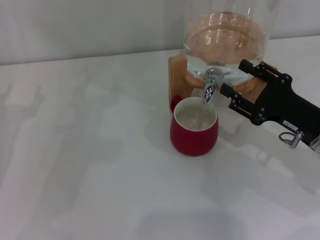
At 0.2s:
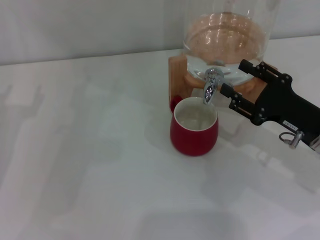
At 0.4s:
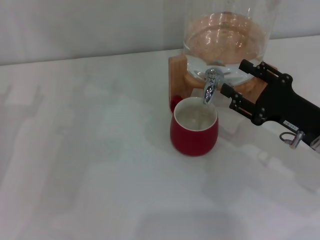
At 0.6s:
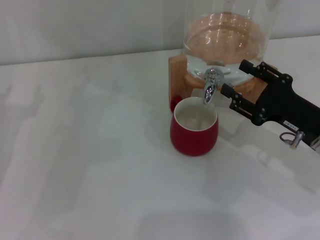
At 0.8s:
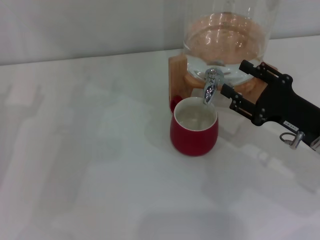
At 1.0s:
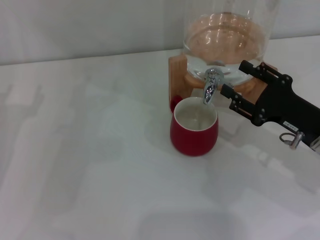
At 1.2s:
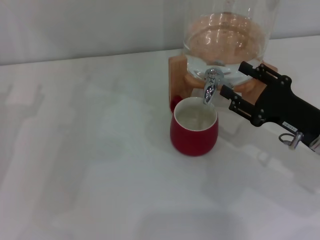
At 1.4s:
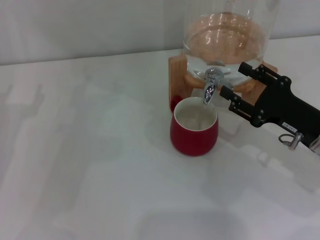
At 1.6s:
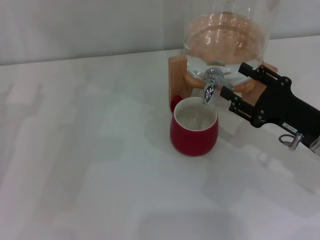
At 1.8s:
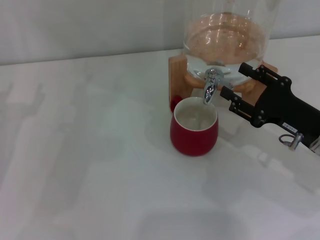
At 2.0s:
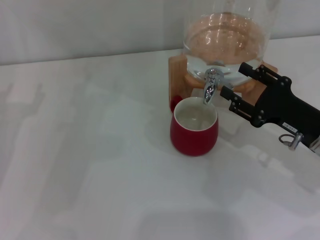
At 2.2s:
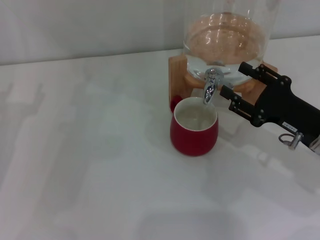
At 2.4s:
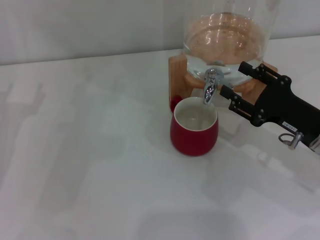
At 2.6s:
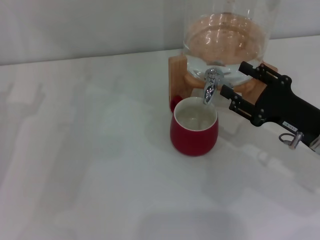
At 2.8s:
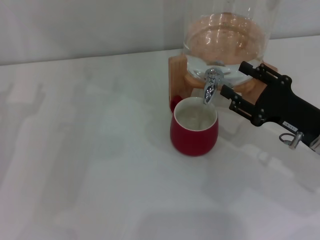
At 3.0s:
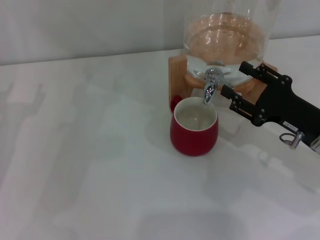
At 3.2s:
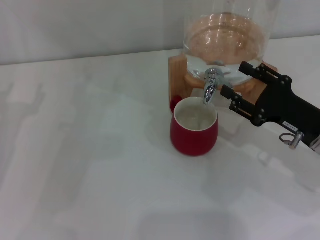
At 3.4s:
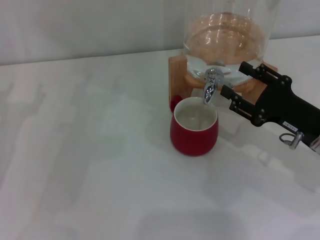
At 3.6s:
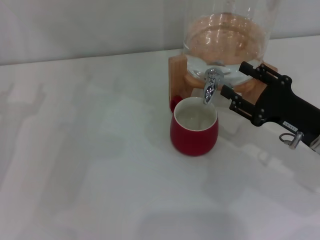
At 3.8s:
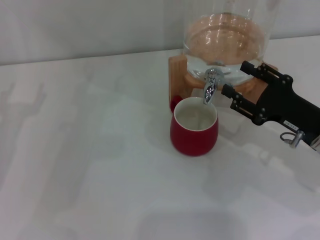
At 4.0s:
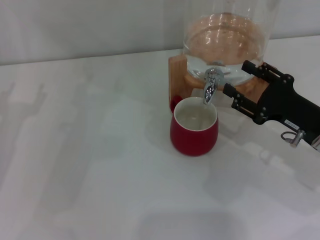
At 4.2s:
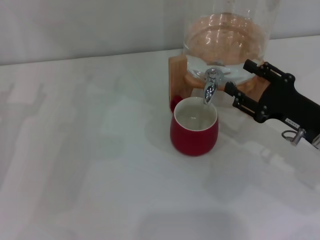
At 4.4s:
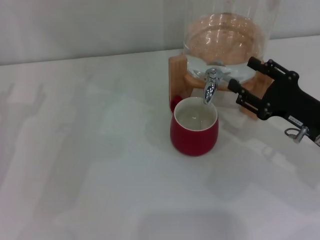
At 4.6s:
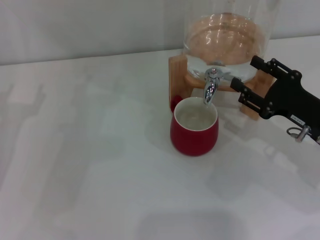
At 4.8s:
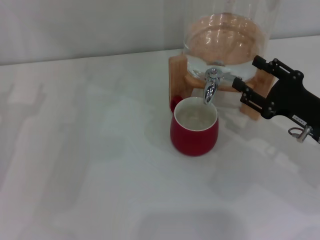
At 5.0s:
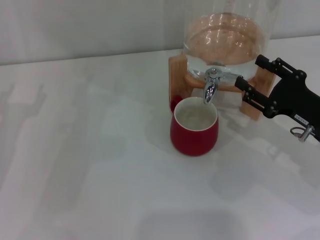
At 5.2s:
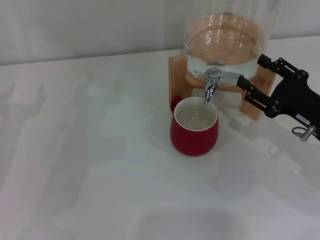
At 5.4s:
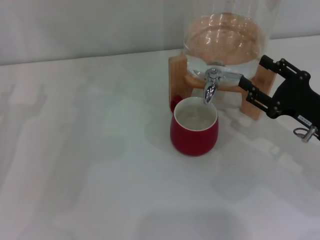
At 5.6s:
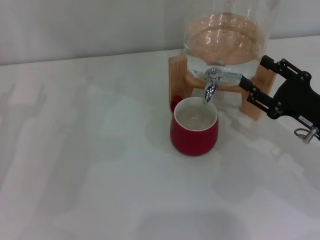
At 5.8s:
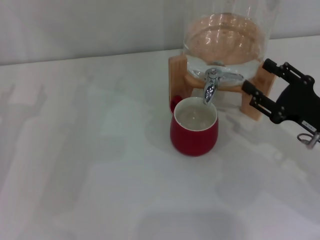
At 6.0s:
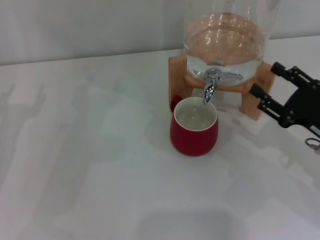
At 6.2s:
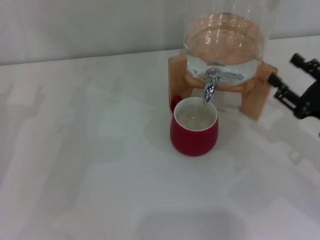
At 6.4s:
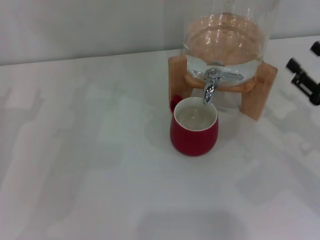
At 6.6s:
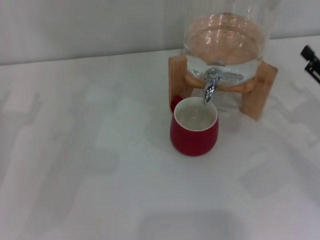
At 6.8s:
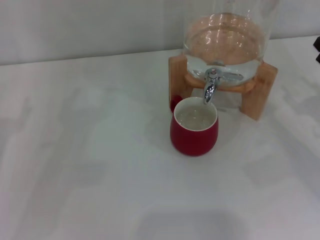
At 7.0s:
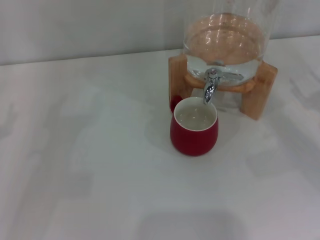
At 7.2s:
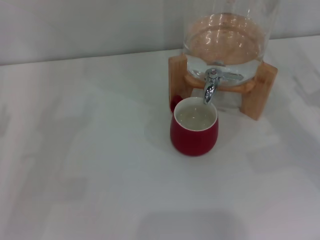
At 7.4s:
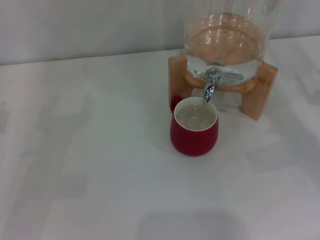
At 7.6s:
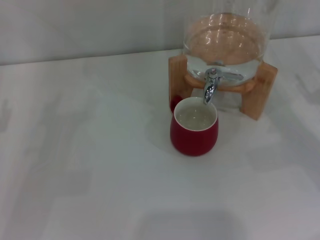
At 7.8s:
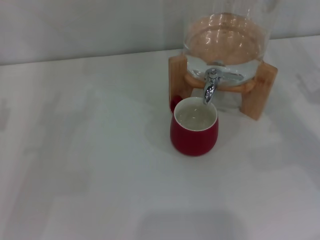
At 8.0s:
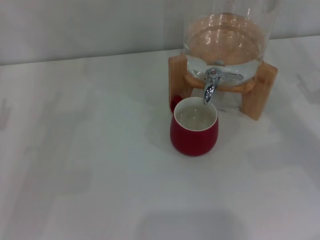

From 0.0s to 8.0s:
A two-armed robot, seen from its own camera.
Task of the whole recording: the left gripper pick up the red cup and place it horizontally under the faucet, the right gripper turn on the faucet to fill the cup, and then turn off the faucet.
Step, from 0.0s to 5.6s: Close the dispenser valve with the right gripper.
From 0.0s to 3.2s: Both grippers stay about where they are.
From 3.2s to 4.8s: Both grippers stay about where they are.
From 4.8s to 6.4s: The right gripper shifts by about 5 cm.
From 6.4s to 8.0s: The right gripper changes place by approximately 5 cm.

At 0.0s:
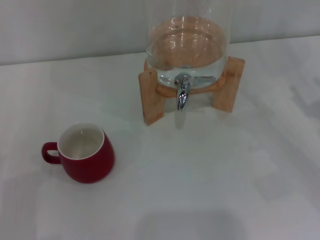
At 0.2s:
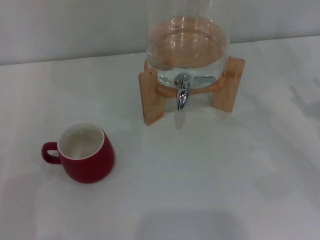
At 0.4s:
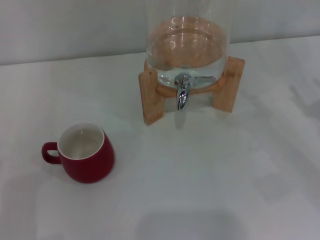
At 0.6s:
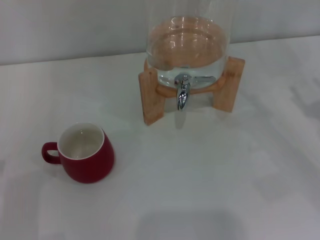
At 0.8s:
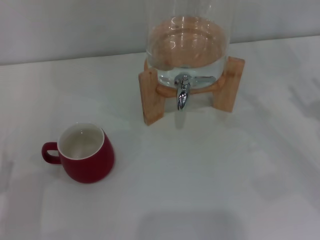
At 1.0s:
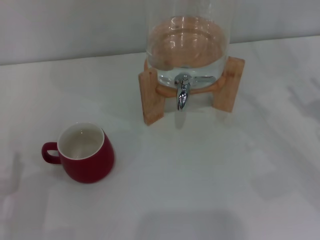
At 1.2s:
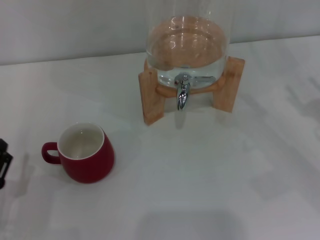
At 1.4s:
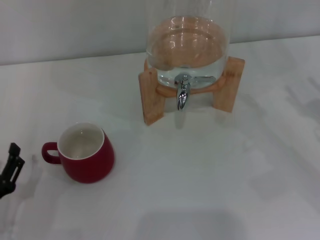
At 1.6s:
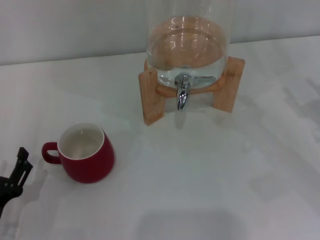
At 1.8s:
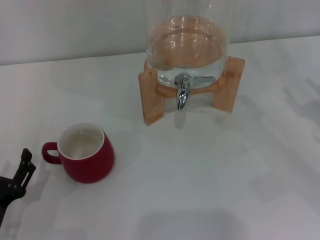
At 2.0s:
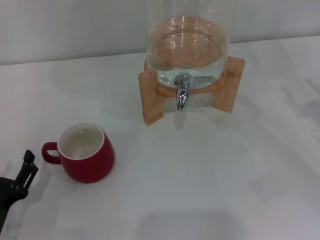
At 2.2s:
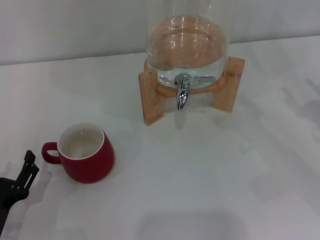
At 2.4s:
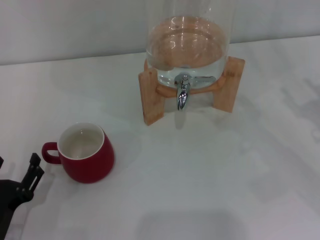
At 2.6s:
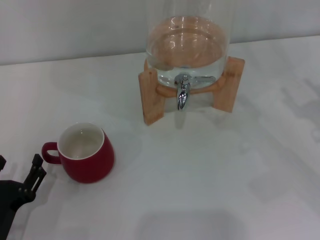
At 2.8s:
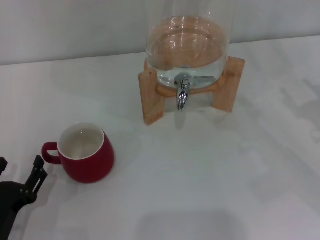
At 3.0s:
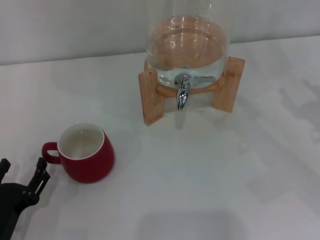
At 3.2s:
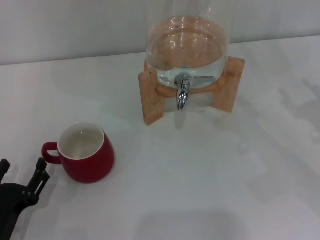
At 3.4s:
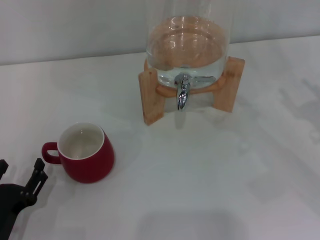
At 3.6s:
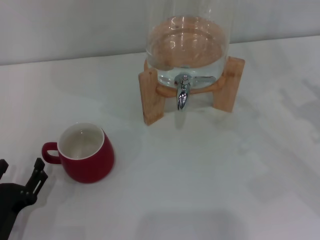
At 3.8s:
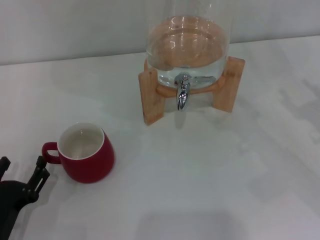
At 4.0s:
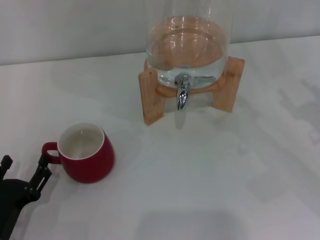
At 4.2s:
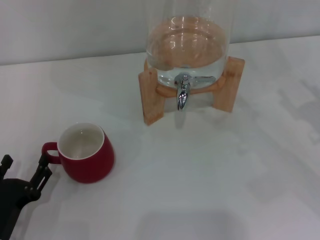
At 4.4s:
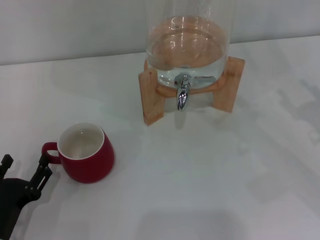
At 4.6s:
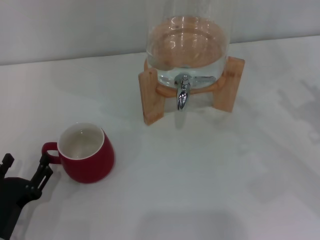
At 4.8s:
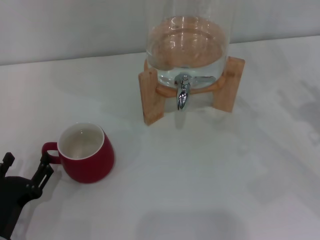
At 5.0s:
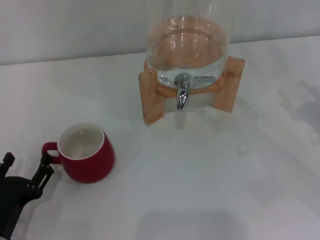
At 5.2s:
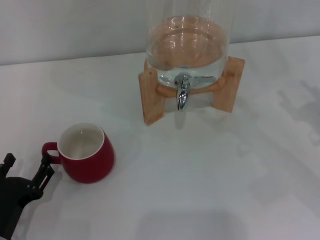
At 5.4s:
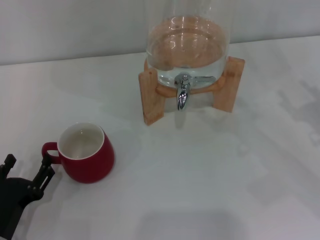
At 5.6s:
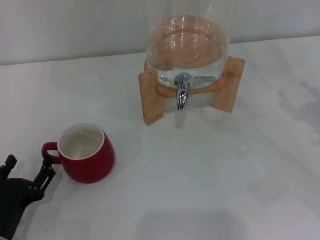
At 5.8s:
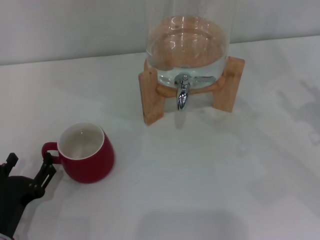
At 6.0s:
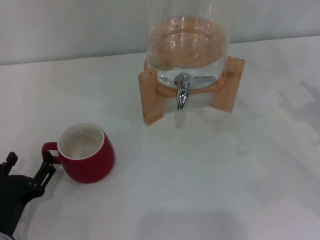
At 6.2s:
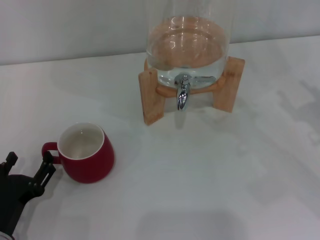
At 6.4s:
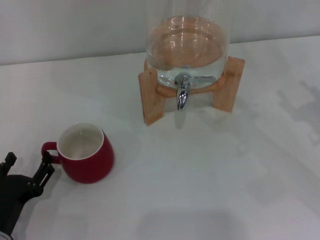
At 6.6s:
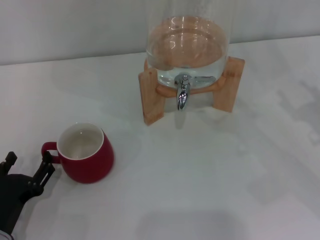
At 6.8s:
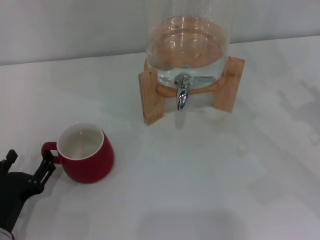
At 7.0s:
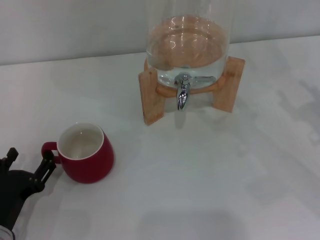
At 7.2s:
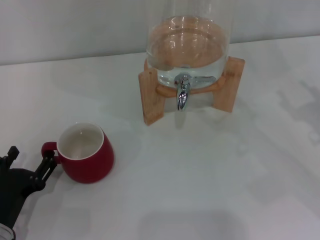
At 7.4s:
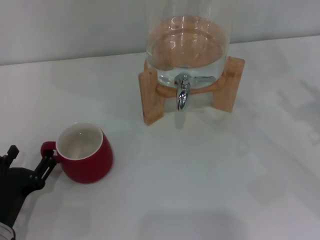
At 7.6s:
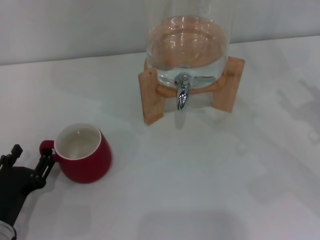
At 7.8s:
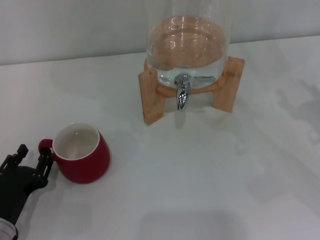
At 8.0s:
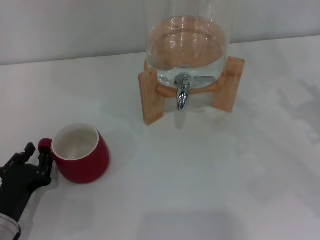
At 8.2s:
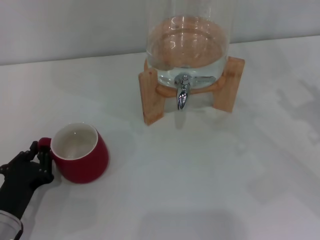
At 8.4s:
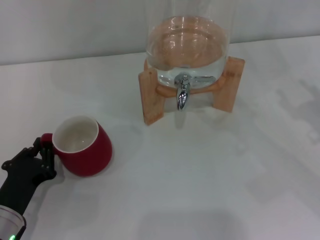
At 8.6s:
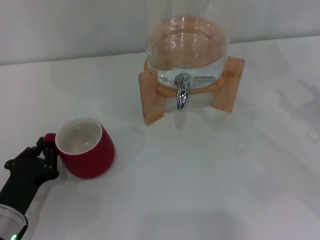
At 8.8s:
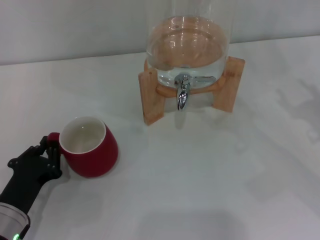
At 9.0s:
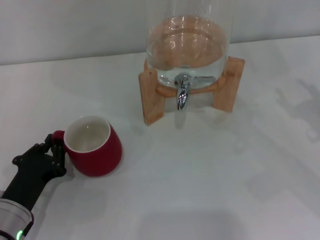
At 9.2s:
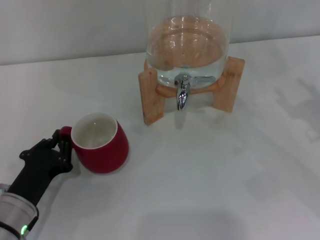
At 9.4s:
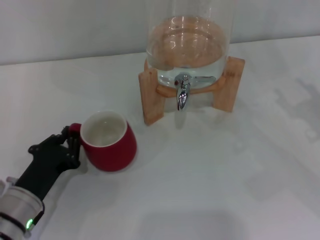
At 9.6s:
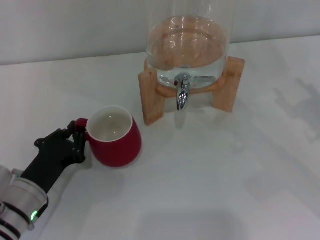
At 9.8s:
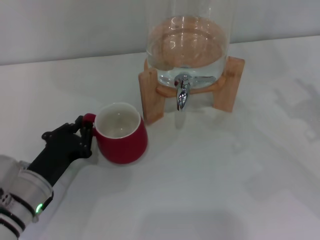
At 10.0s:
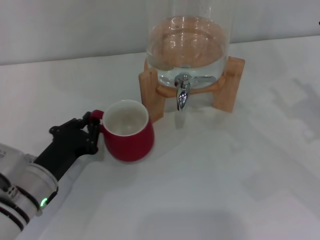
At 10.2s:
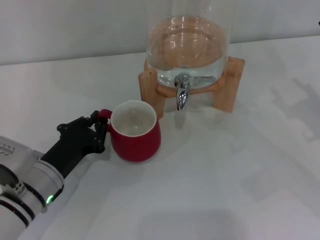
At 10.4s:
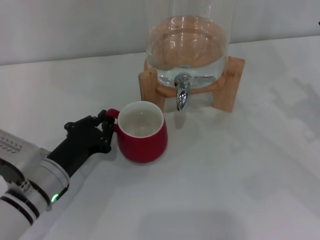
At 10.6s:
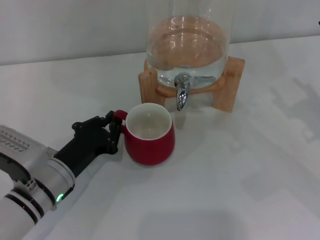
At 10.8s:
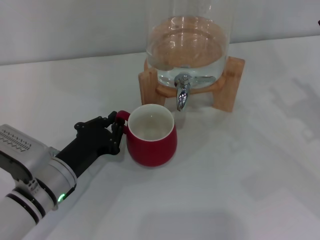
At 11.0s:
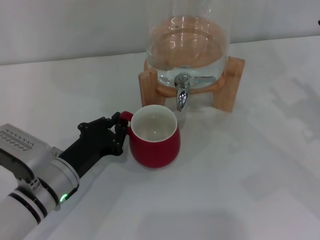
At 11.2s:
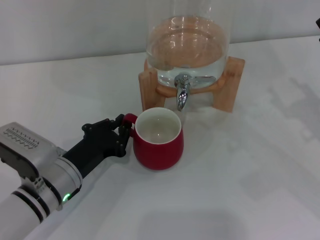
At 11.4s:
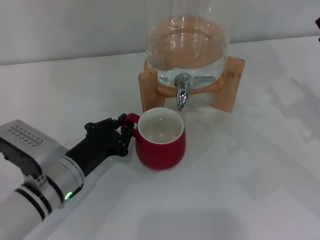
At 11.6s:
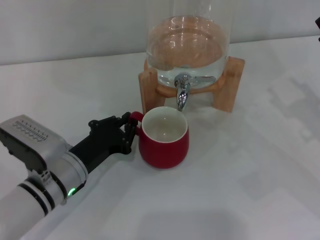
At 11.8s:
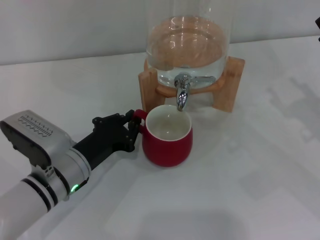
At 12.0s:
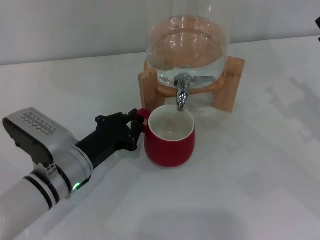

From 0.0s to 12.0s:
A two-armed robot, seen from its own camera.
Task of the whole recording: the left gripper pick up the red cup and place it horizontally under the faucet, the right gripper turn on the faucet to fill the cup, and then turn off the faucet.
From 0.0s to 1.6s: There are only small adjustments of the grippers.
From 1.6s to 3.0s: The grippers stay close to where they were, moving slightly.
From 3.0s to 4.4s: Both grippers stay put.
From 4.4s to 6.0s: Neither gripper changes place.
From 6.0s to 7.6s: The grippers move only a little.
From 7.6s to 9.0s: The left gripper closes up.
From 9.0s to 10.4s: The left gripper is displaced to the right by roughly 5 cm.
From 10.4s to 12.0s: There are only small adjustments of the grippers.

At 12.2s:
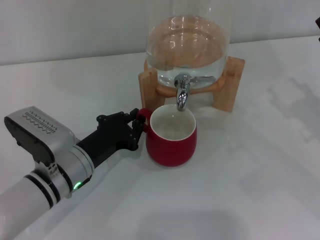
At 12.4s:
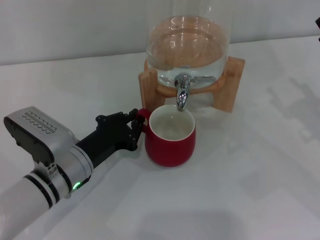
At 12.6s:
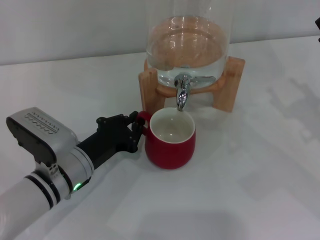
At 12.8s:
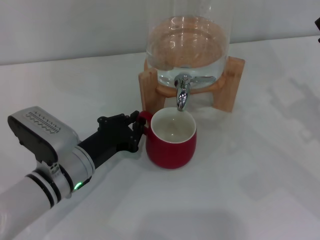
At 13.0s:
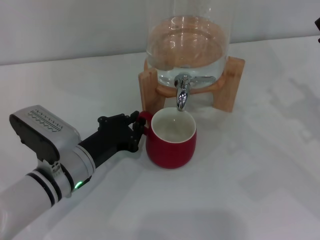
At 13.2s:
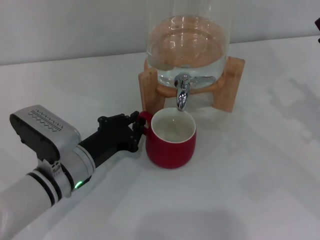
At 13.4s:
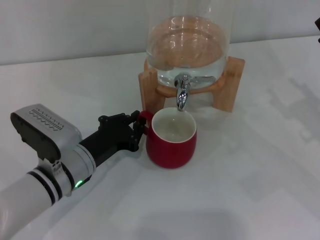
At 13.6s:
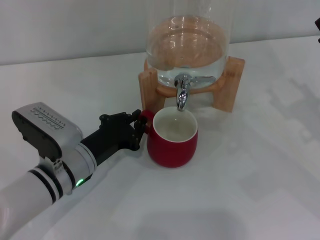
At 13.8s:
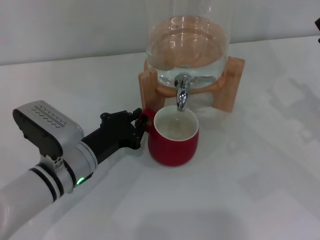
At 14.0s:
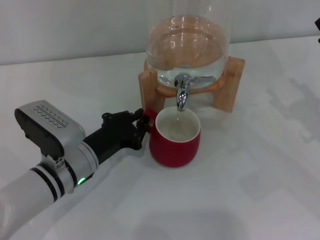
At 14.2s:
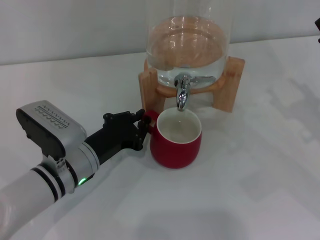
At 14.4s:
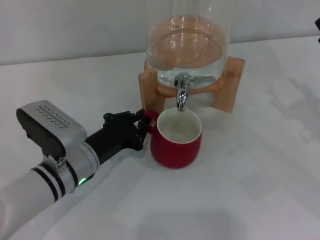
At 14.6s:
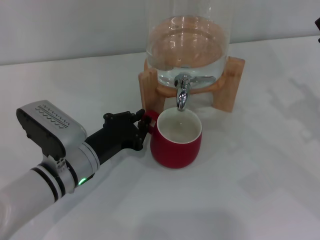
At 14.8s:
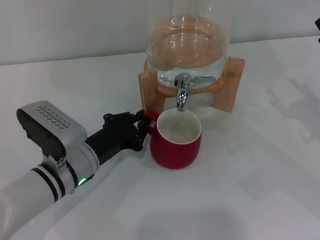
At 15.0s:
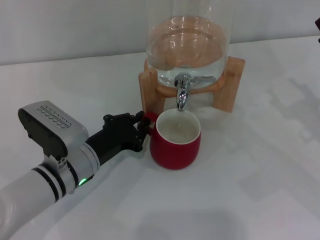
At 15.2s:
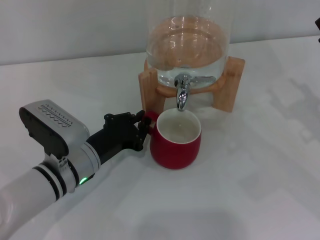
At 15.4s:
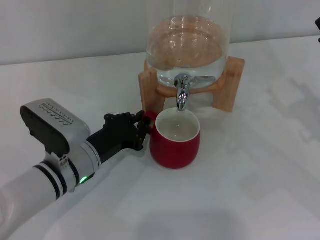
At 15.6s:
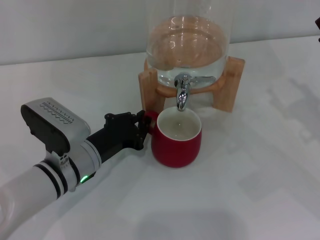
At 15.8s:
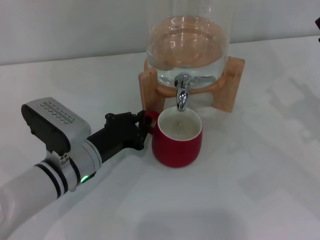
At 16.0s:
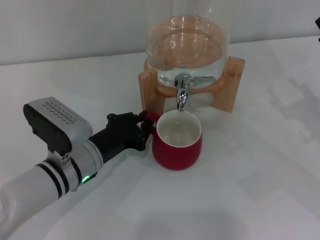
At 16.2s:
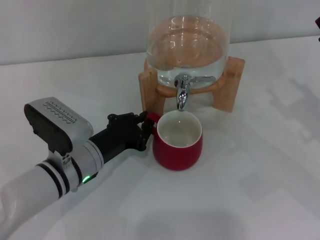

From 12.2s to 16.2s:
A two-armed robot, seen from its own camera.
Task of the whole recording: the left gripper pick up the red cup and place it horizontally under the faucet, the right gripper turn on the faucet to fill the cup, and then turn off the faucet.
From 12.2s to 14.8s: Both grippers stay put.
From 14.8s to 16.2s: Both grippers stay about where they are.
